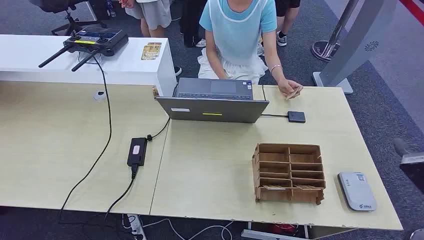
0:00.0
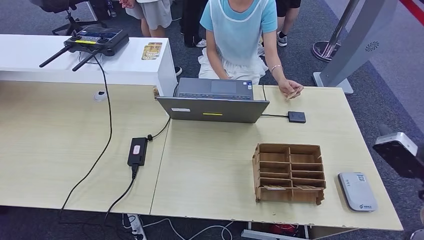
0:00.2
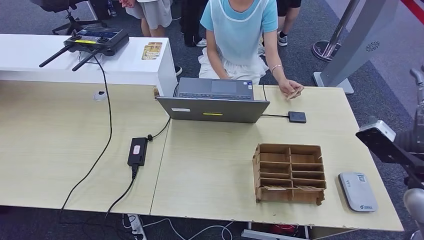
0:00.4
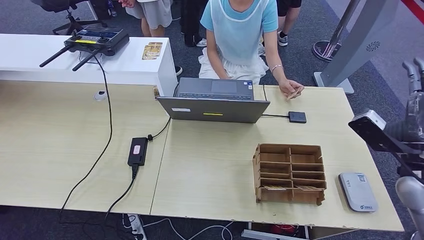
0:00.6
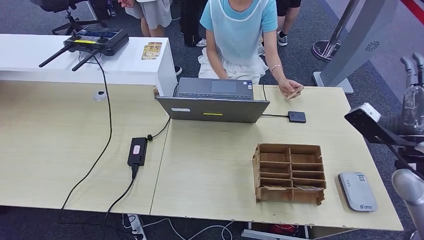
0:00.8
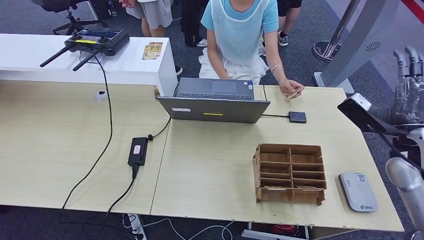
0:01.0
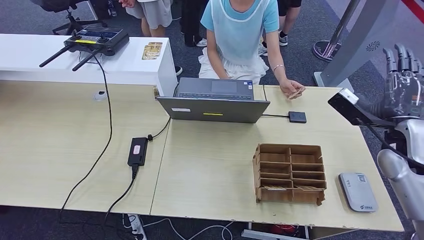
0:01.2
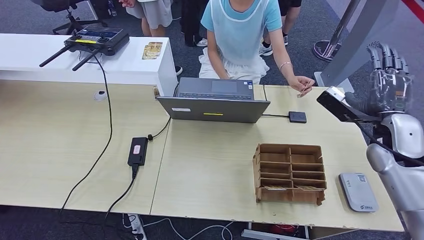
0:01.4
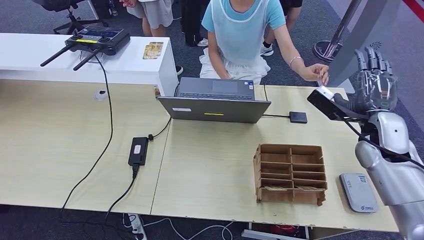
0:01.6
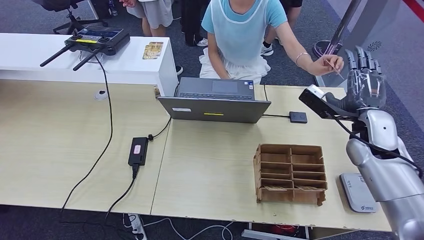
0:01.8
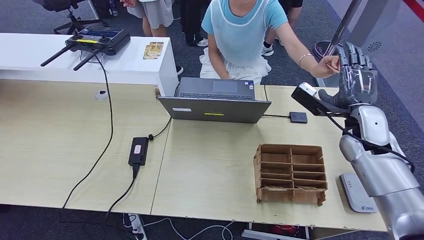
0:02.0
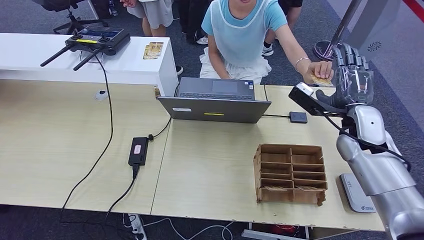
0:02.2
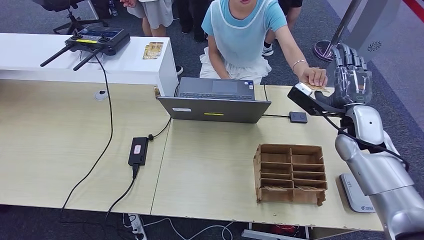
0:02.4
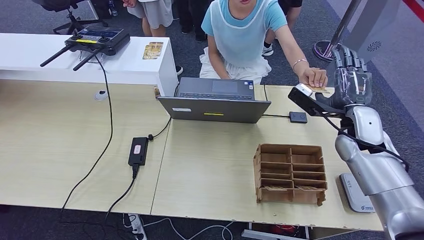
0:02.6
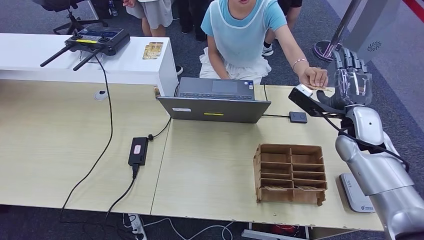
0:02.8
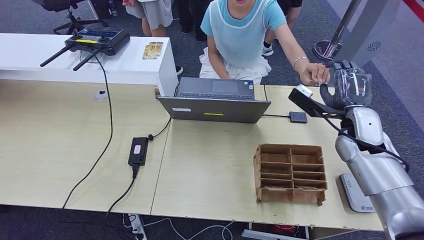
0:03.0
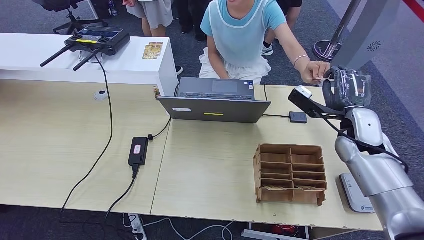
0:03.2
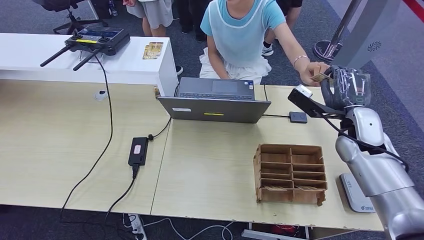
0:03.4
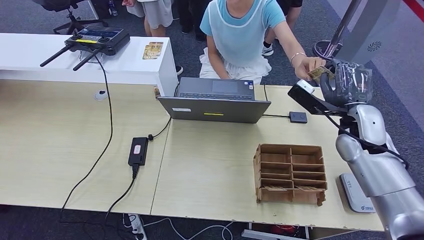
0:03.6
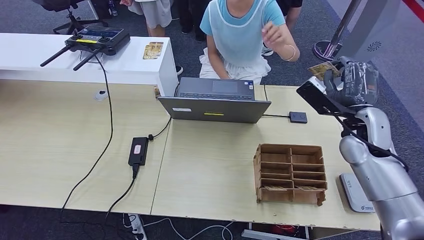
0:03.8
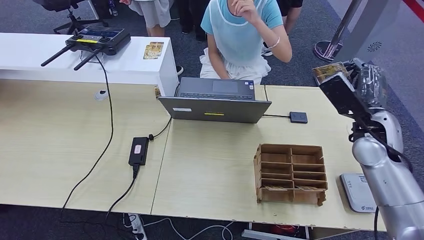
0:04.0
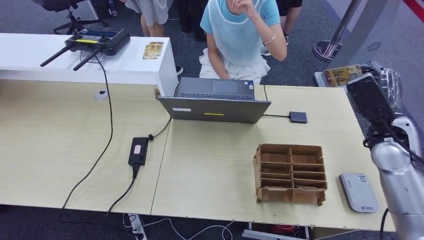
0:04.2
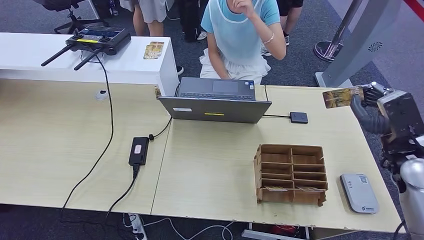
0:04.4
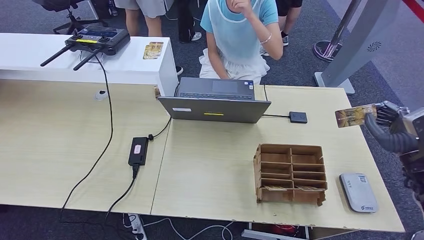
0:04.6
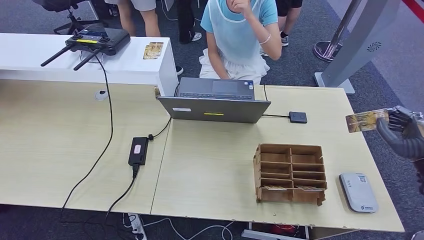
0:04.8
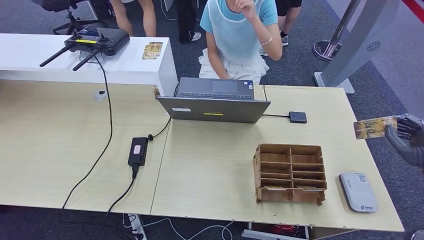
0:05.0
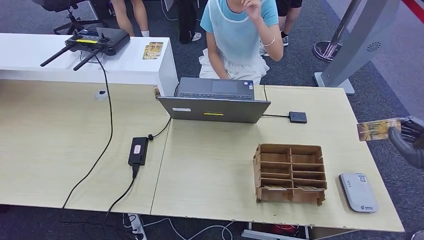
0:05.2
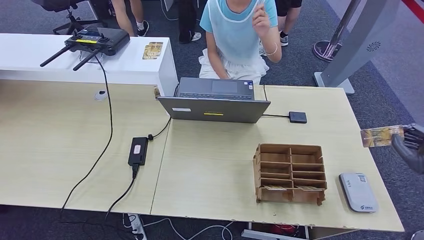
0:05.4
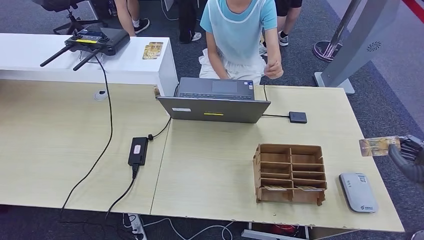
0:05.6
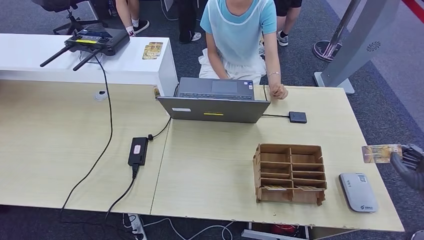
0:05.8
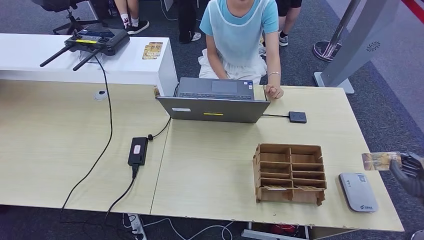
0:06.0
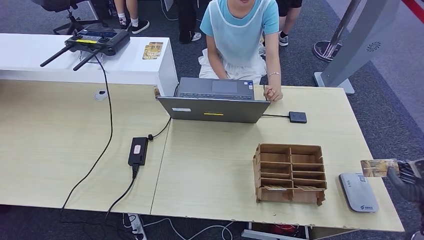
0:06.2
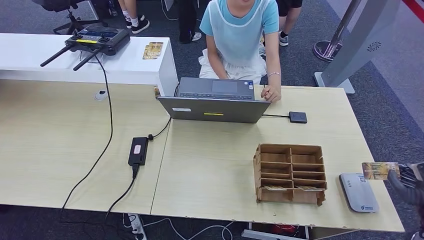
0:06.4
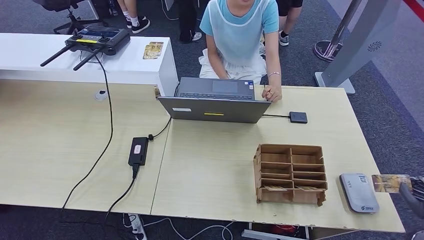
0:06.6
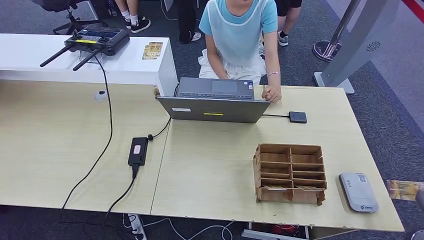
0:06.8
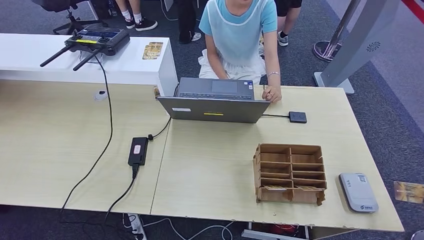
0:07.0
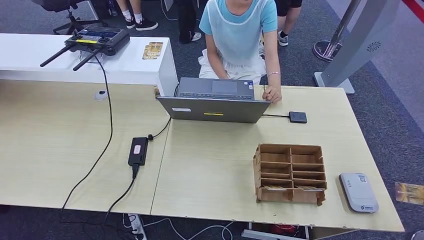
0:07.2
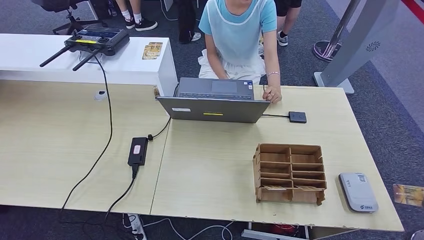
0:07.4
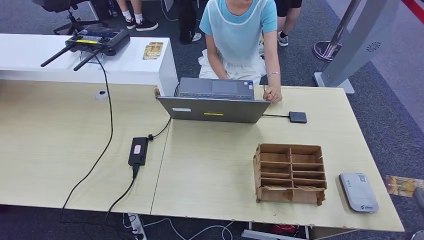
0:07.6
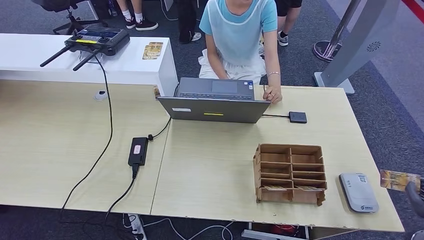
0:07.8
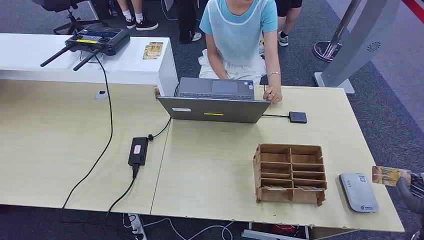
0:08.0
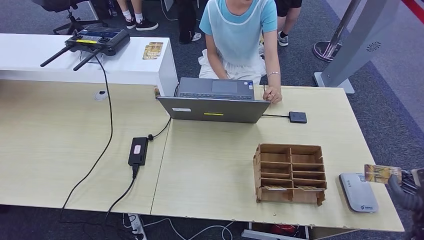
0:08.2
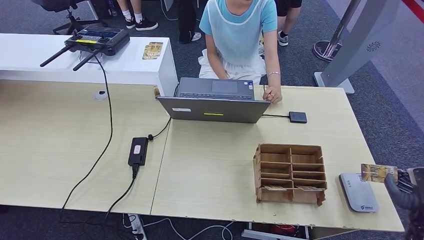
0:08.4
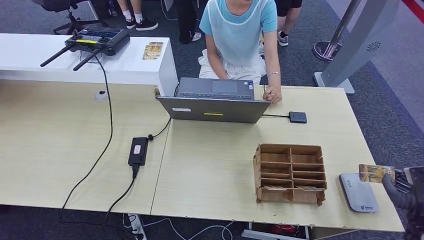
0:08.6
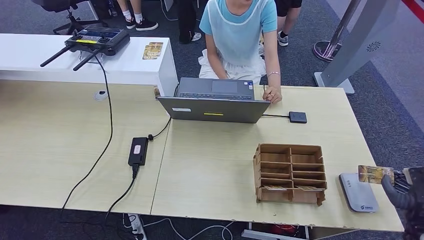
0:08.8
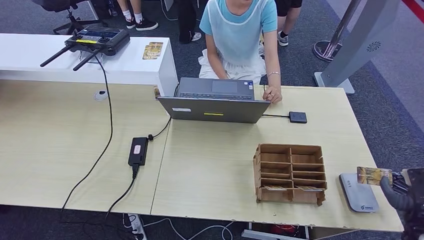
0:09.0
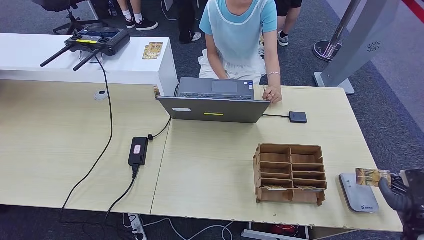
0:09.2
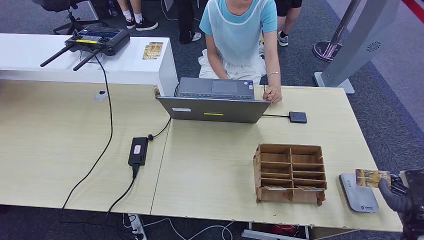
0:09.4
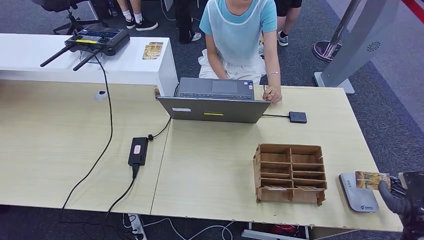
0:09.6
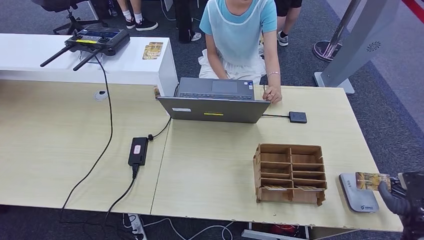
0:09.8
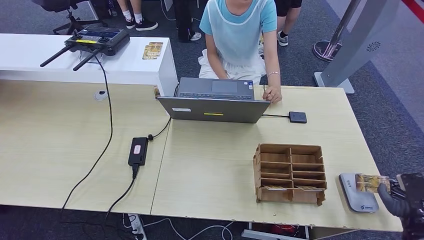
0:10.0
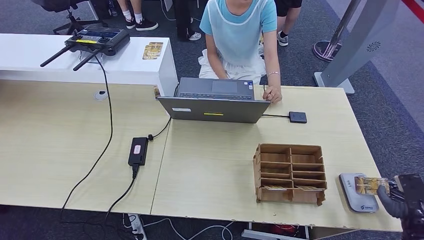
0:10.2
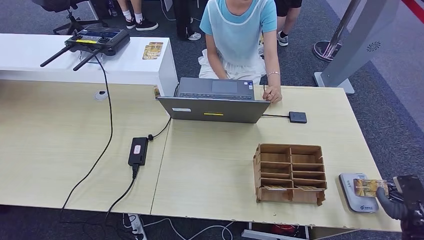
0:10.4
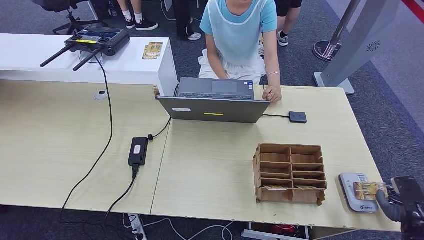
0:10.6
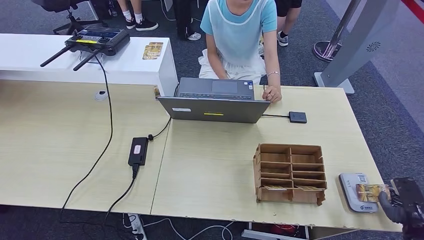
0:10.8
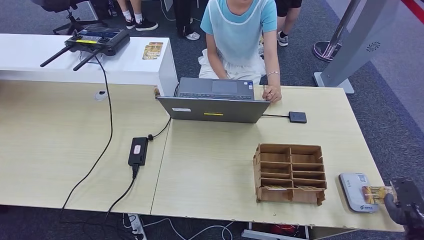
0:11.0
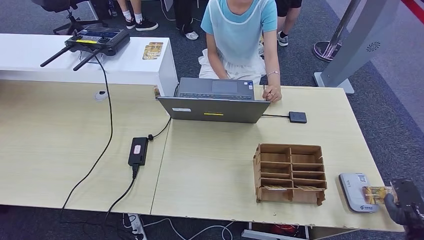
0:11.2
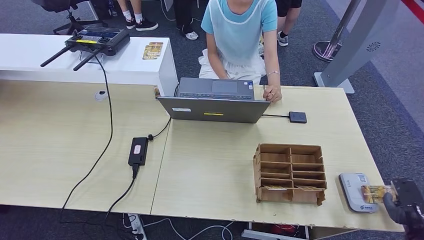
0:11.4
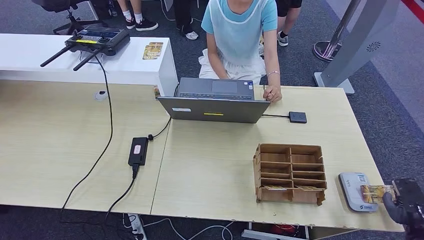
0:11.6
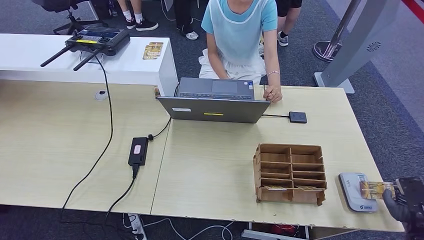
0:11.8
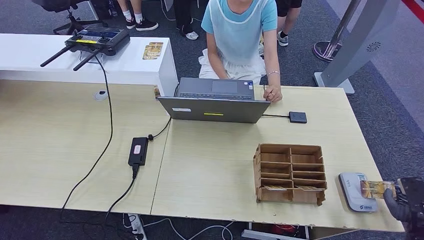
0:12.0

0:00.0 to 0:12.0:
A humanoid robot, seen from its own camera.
Step, 0:00.0 to 0:04.6: Take the ID card from the person's hand.
0:01.6 to 0:03.0: The hands make only small movements.
0:03.0 to 0:04.4: The right hand goes roughly 10 cm backward and to the right.
0:04.4 to 0:06.0: The right hand goes some 20 cm backward, to the right and downward.
0:06.0 to 0:07.6: The right hand is displaced backward by roughly 5 cm.
0:07.6 to 0:09.0: The right hand changes place by roughly 5 cm.
0:09.0 to 0:12.0: The hands make only small movements.

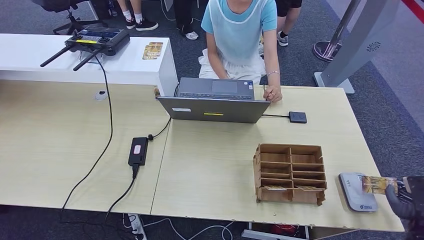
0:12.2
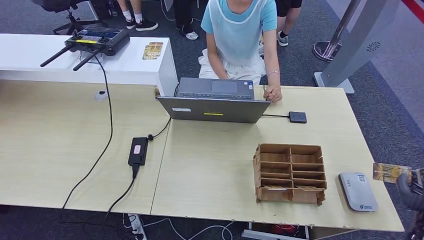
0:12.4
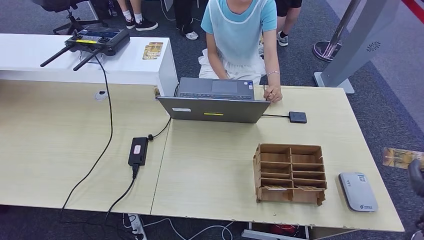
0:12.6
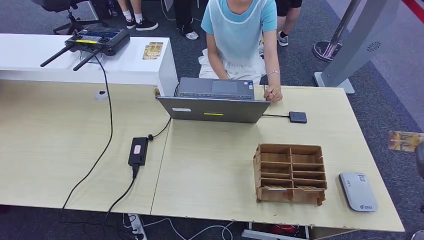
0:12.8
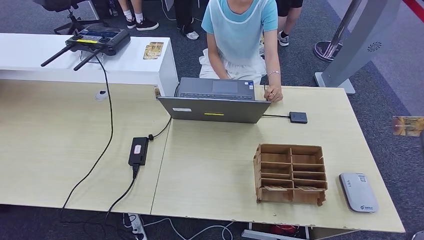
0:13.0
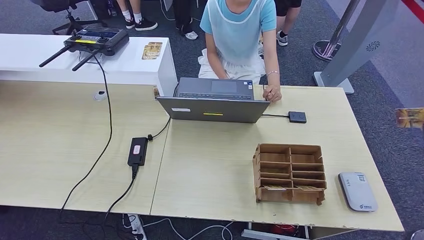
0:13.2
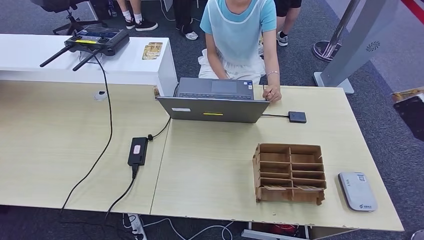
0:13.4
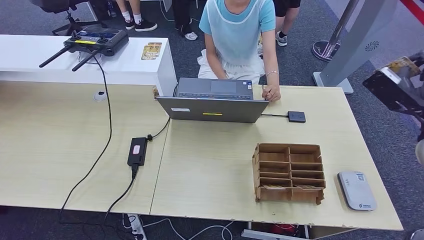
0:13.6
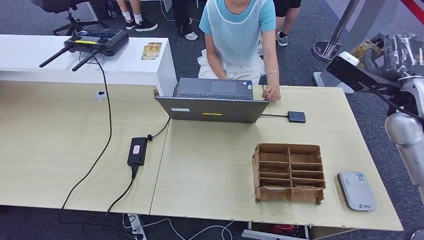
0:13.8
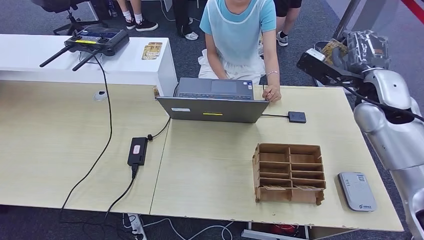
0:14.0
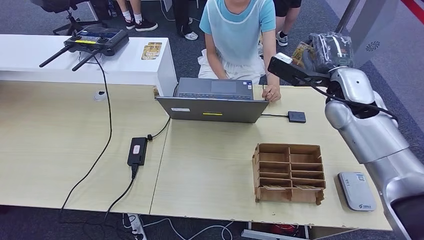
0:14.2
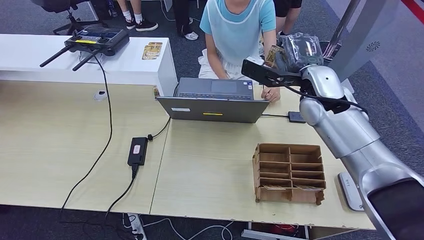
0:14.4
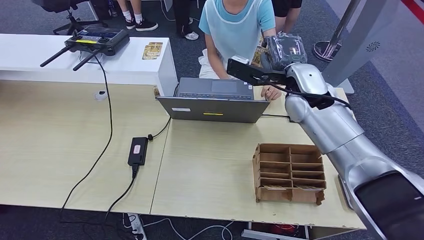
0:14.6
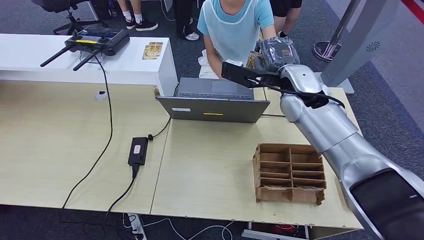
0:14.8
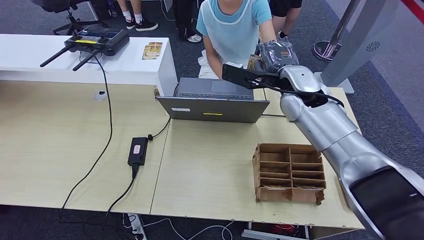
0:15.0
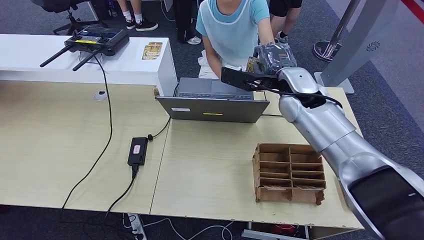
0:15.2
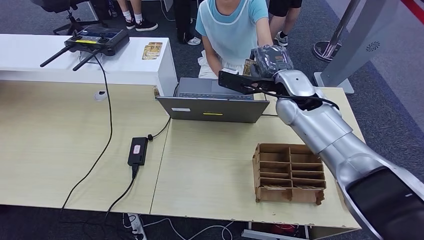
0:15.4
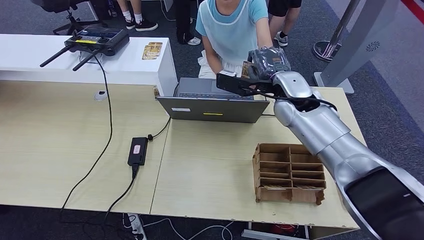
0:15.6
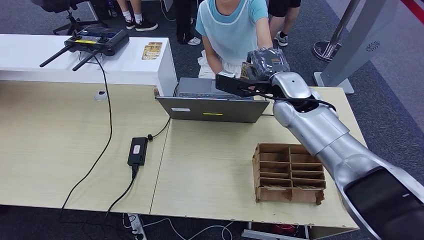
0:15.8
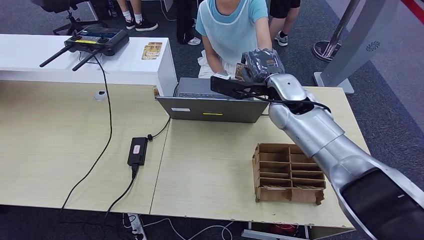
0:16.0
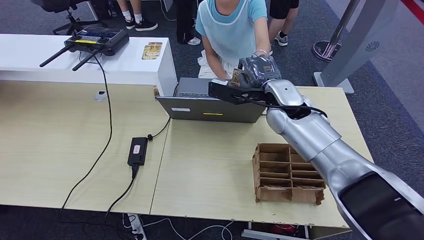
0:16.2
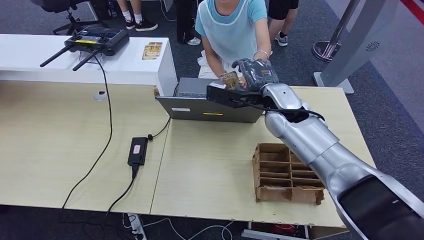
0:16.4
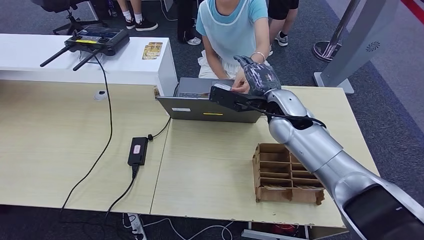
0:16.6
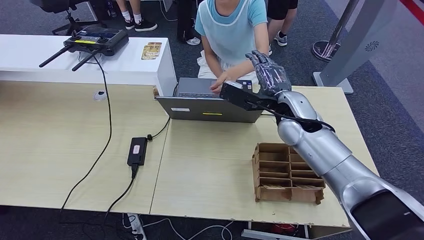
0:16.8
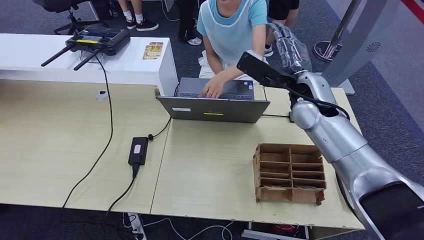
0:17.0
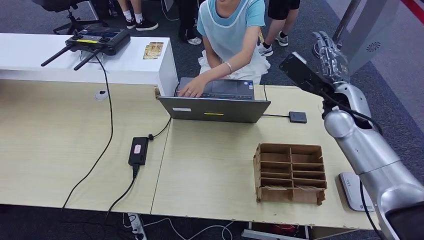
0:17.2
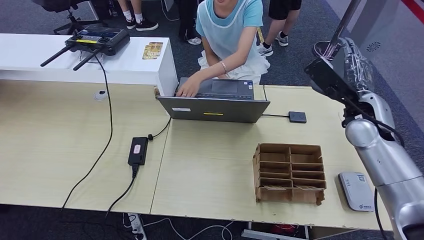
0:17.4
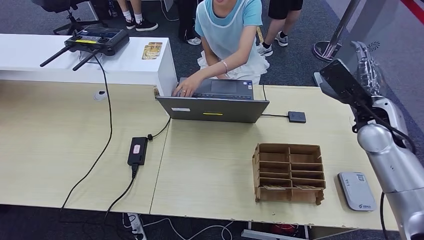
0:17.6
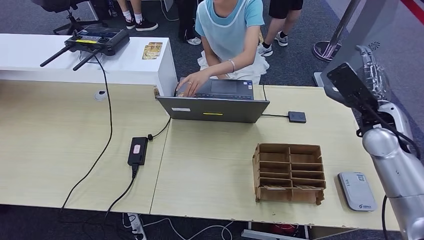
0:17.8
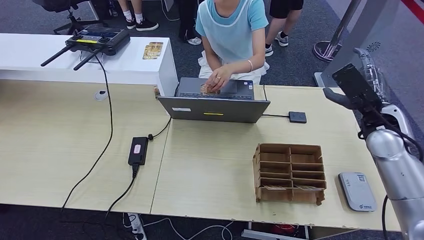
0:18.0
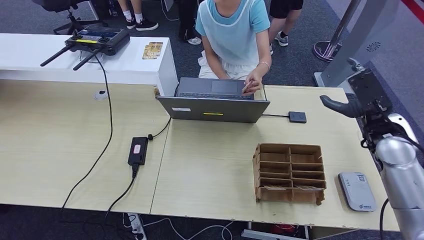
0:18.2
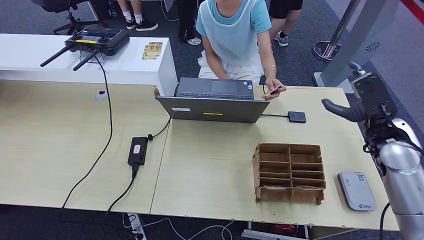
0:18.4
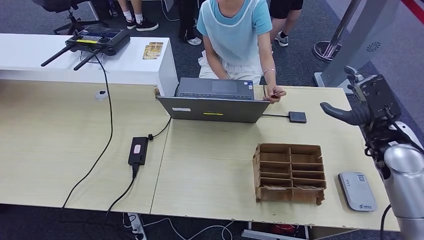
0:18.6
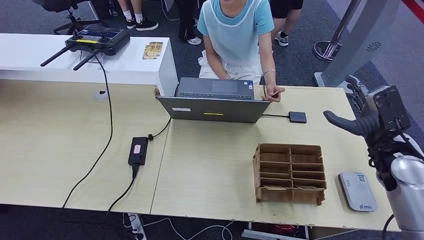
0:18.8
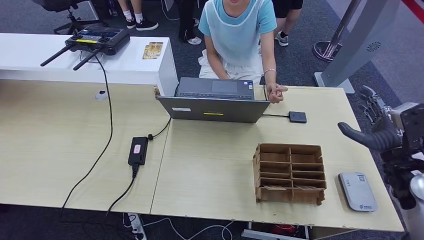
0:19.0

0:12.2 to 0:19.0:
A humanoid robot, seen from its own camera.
Step, 0:13.2 to 0:17.4: Hand the ID card to the person.
0:12.2 to 0:13.6: The right hand is displaced upward and forward by about 30 cm.
0:13.6 to 0:15.0: The right hand travels to the left and forward by about 30 cm.
0:15.0 to 0:16.2: The hands move only a little.
0:16.2 to 0:17.6: The right hand moves to the right, some 20 cm.
0:17.6 to 0:19.0: The right hand travels backward, to the right and downward by roughly 15 cm.
